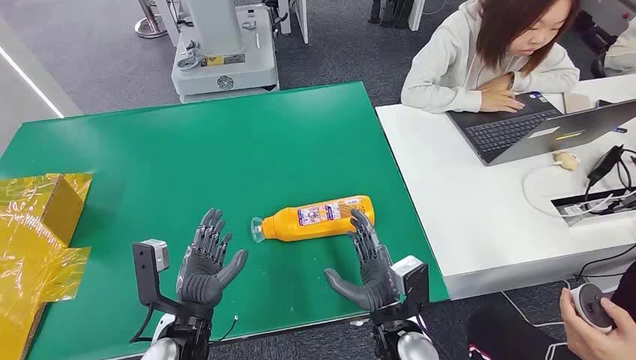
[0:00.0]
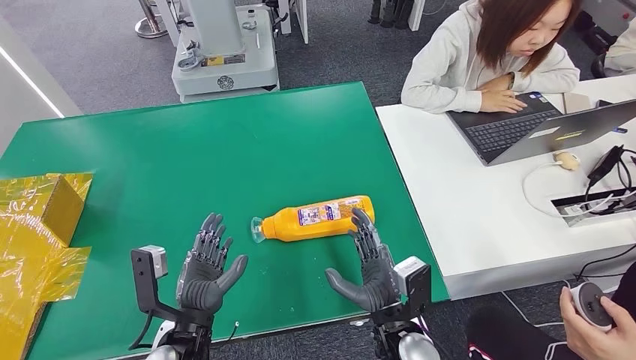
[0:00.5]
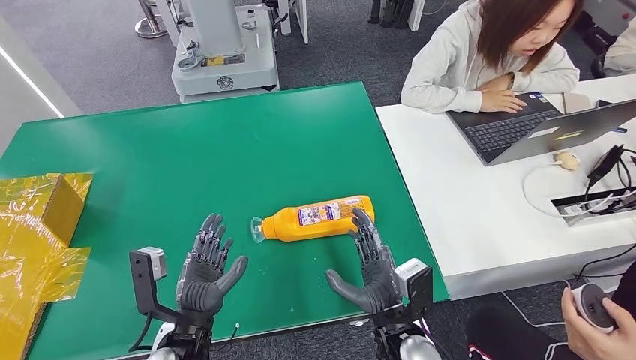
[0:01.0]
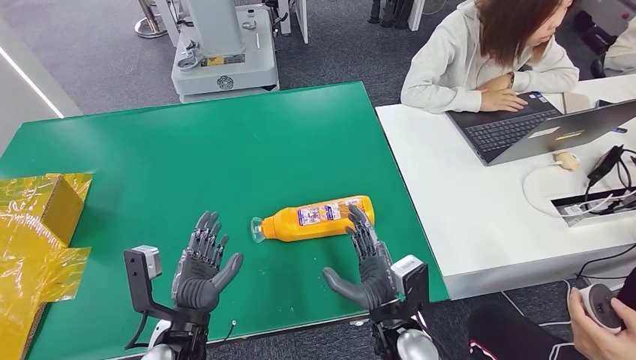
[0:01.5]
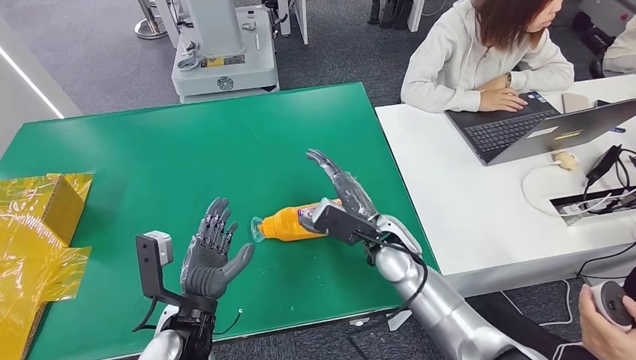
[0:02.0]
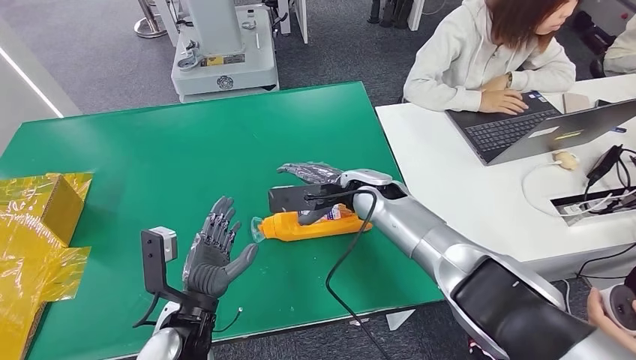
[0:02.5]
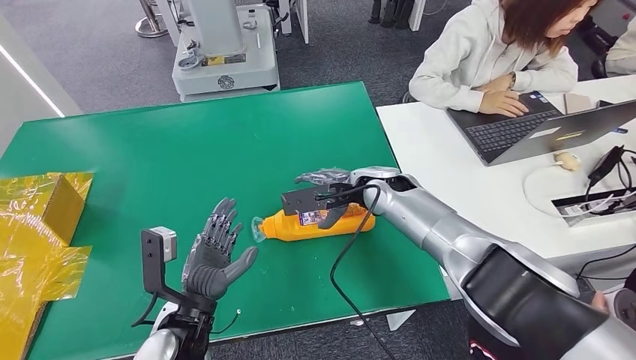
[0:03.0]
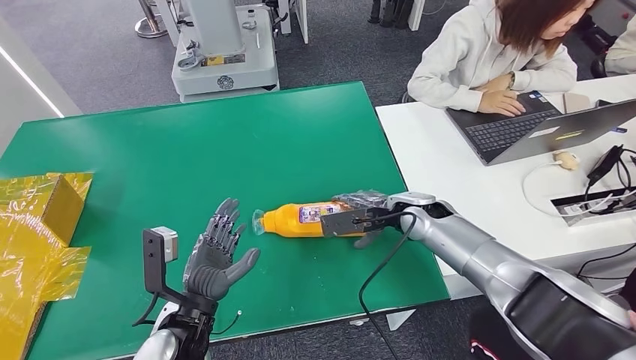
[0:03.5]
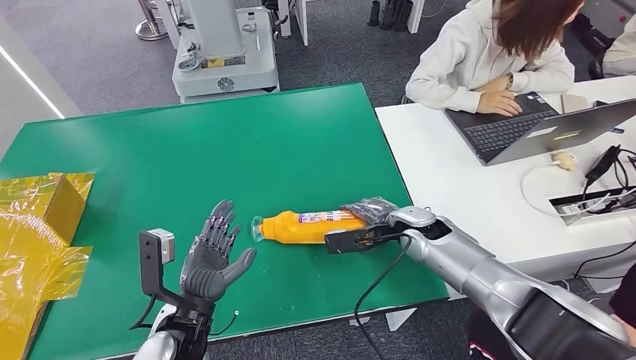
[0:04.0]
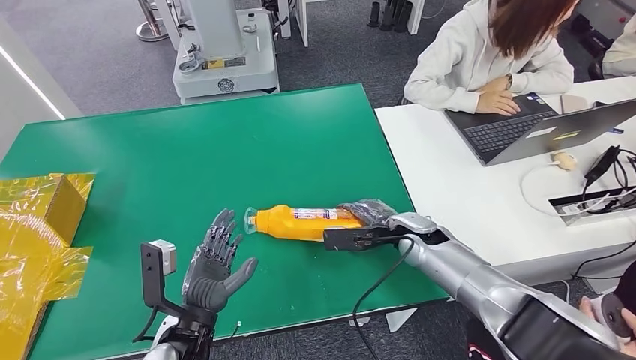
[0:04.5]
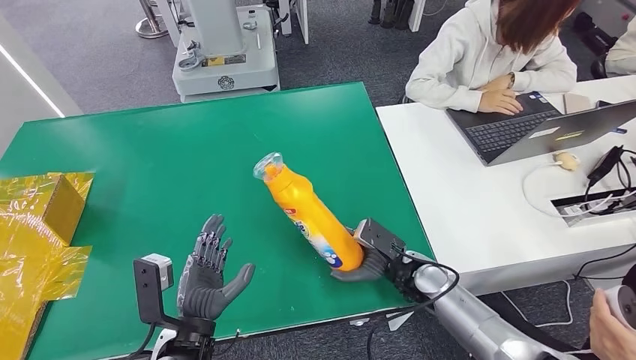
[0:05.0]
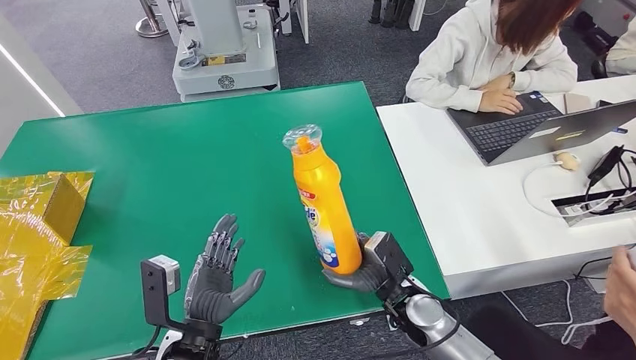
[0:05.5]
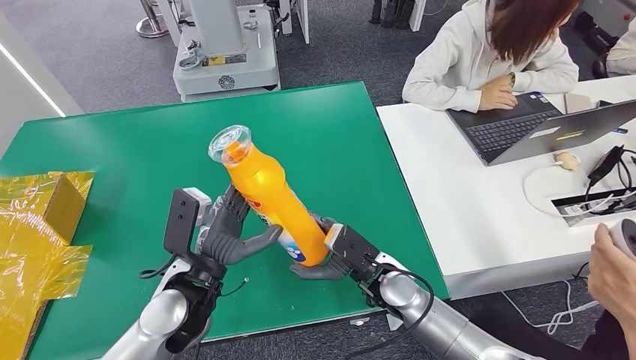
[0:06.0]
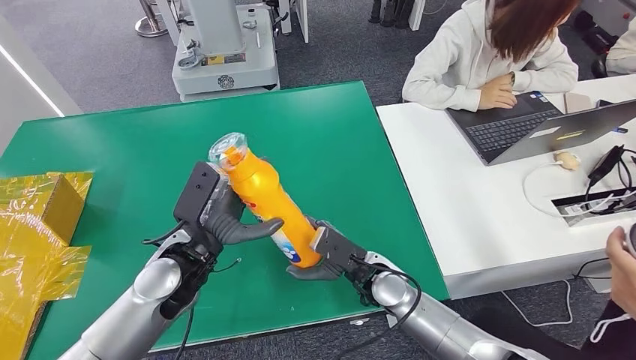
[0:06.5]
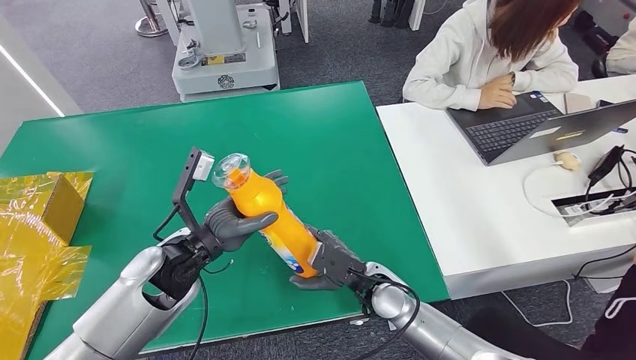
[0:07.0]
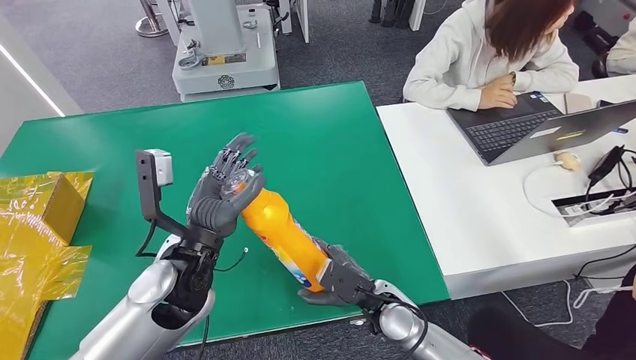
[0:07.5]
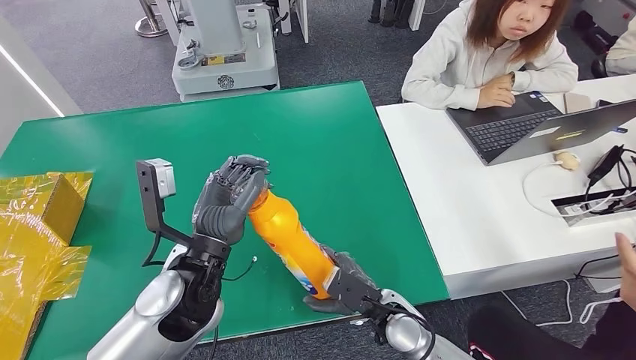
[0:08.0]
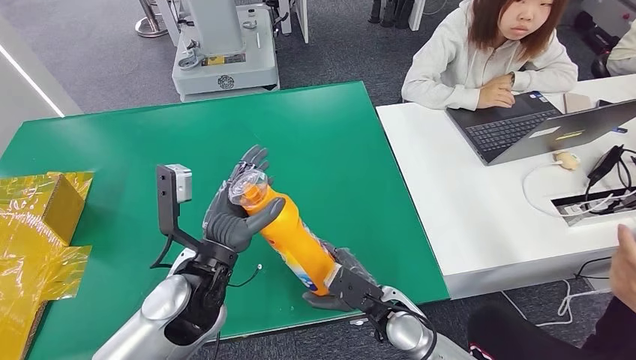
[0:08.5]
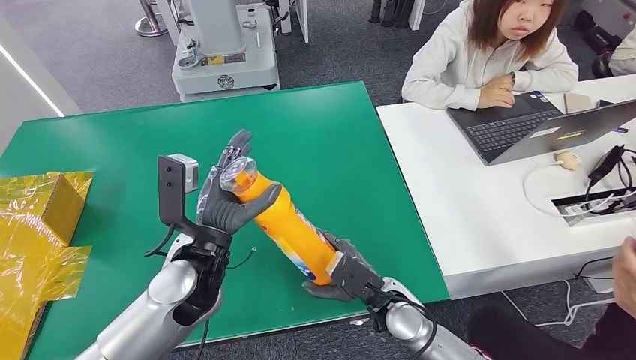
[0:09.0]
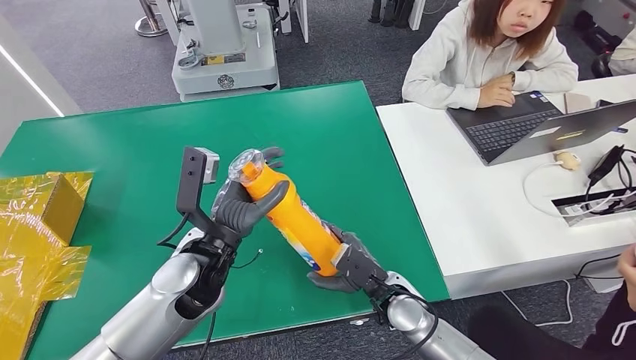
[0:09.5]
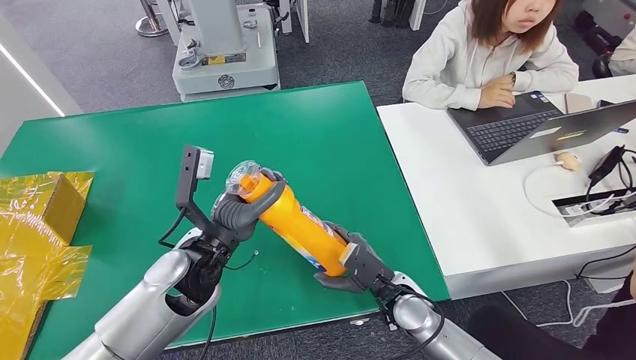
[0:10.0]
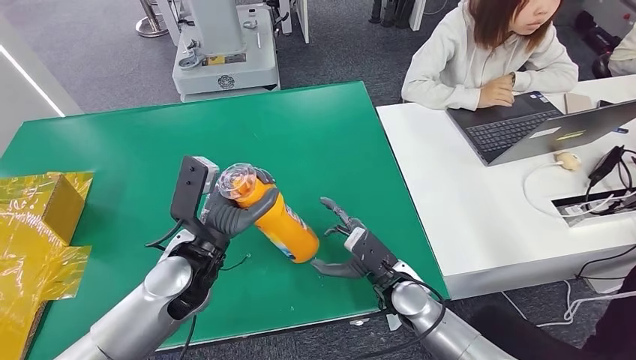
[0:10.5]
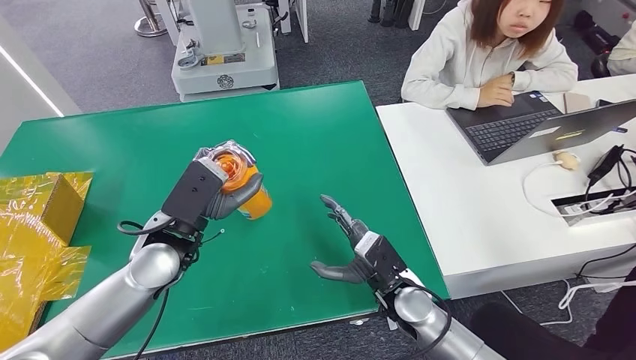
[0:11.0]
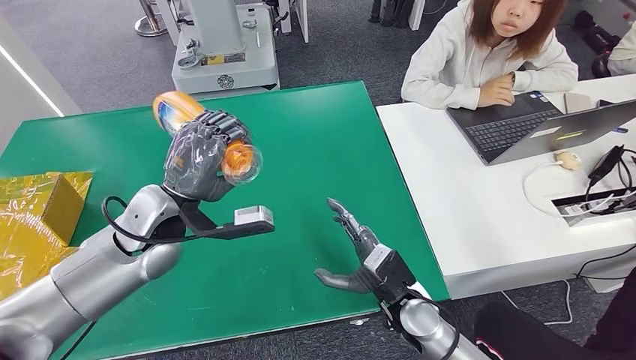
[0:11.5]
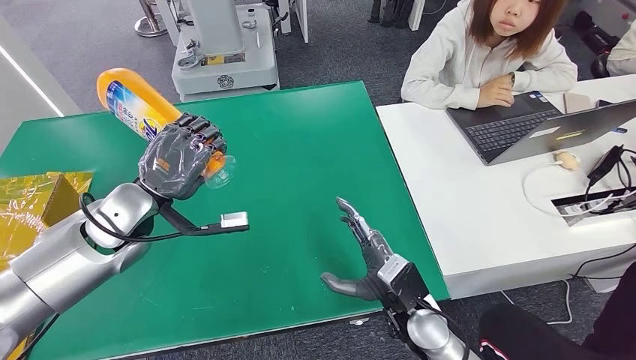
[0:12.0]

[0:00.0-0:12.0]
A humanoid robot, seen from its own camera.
Step, 0:00.0 to 0:05.0: Pick up the bottle from the table.
0:02.0 to 0:04.0: The right hand heads to the right, covering about 10 cm.
0:06.0 to 0:08.0: The left hand shifts roughly 5 cm upward. The right hand moves backward, approximately 5 cm.

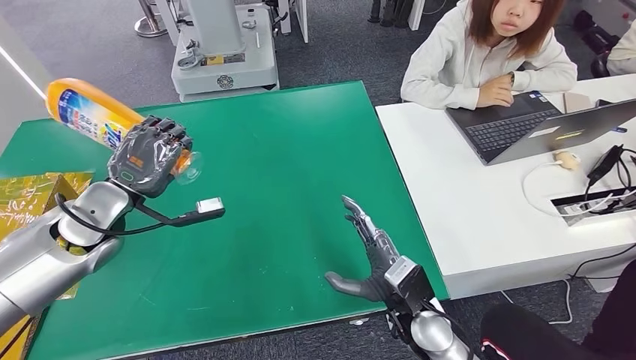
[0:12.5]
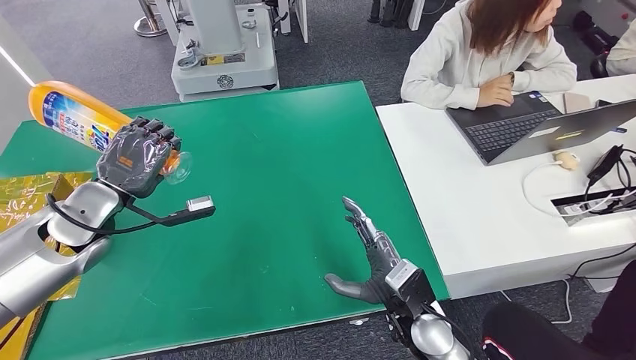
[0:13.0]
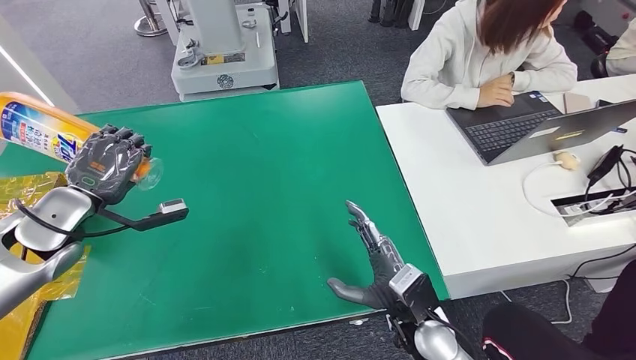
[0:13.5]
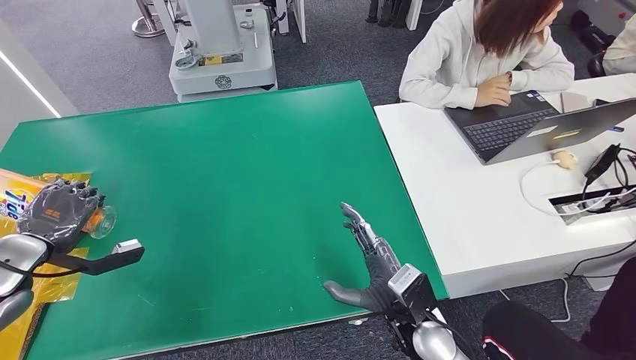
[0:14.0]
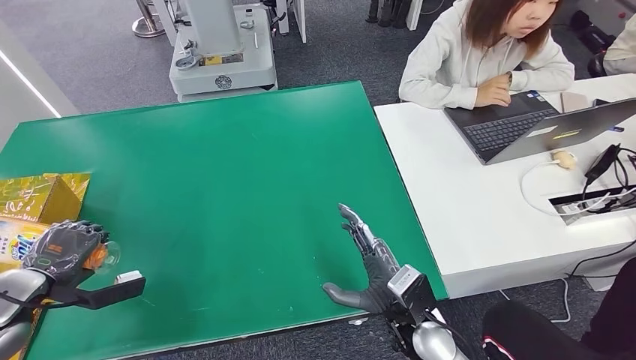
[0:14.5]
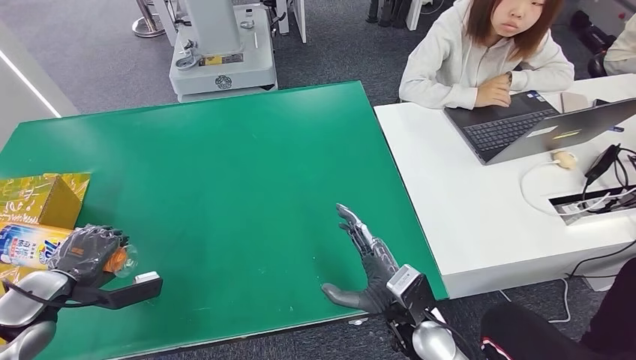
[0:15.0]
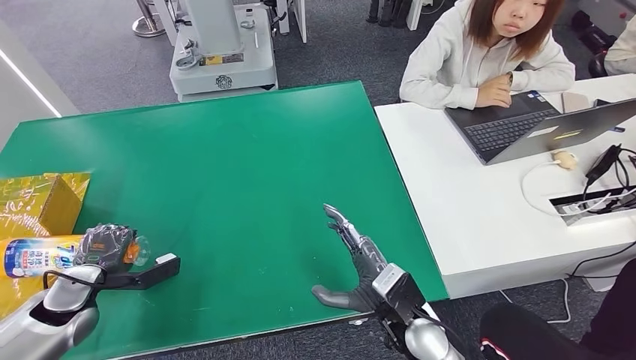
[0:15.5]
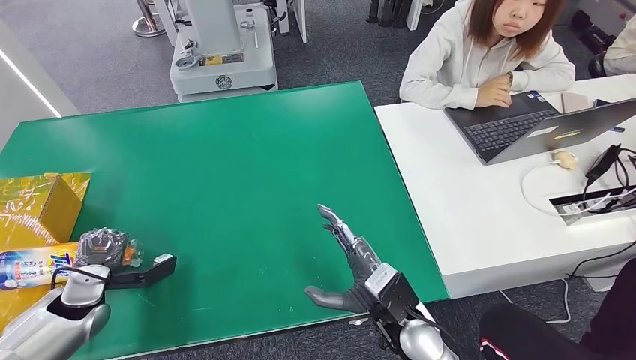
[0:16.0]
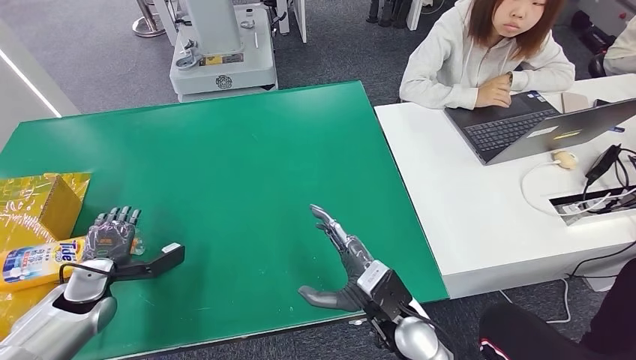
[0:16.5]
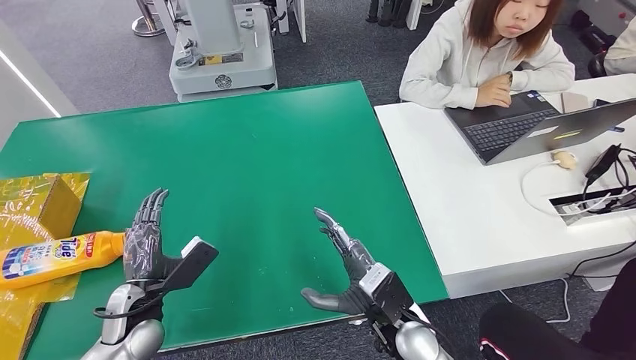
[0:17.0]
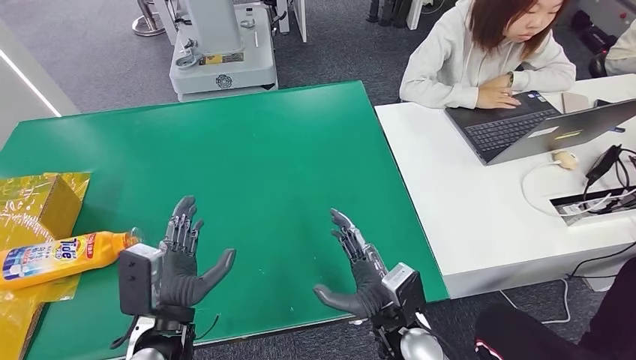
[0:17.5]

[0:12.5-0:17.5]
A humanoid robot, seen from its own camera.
Step, 0:12.5 to 0:17.5: Turn the bottle to the front side.
0:12.5 to 0:15.0: The left hand shifts approximately 20 cm to the left, downward and backward.
0:15.0 to 0:17.5: The left hand shifts roughly 25 cm to the right, downward and backward.
